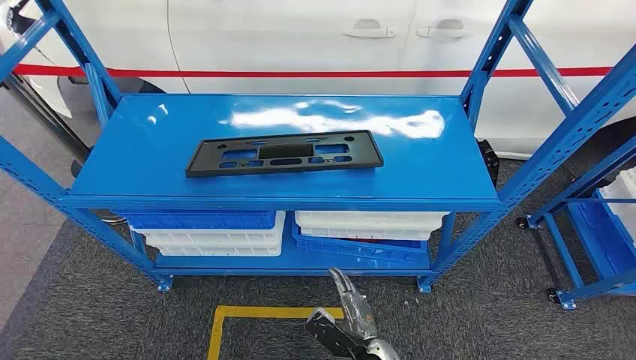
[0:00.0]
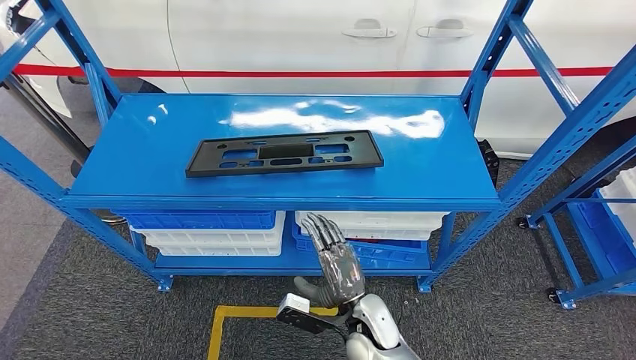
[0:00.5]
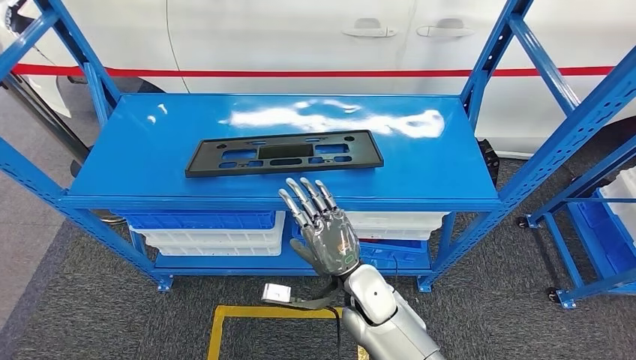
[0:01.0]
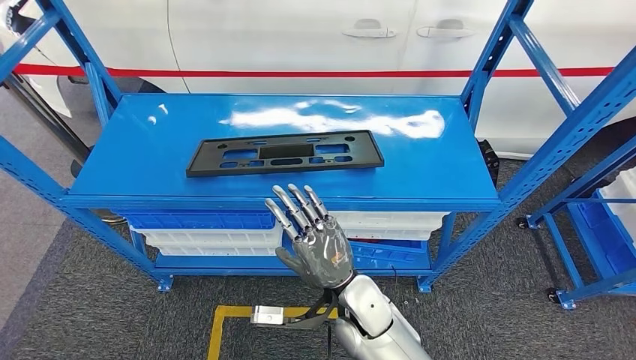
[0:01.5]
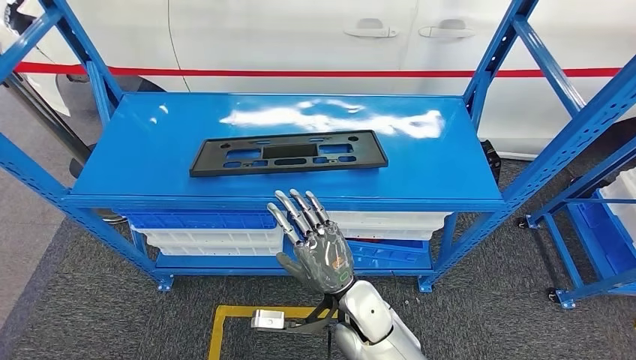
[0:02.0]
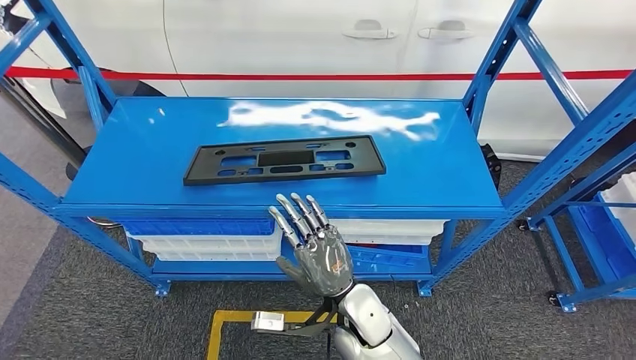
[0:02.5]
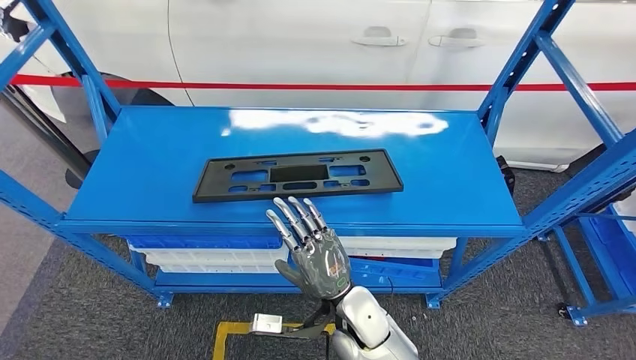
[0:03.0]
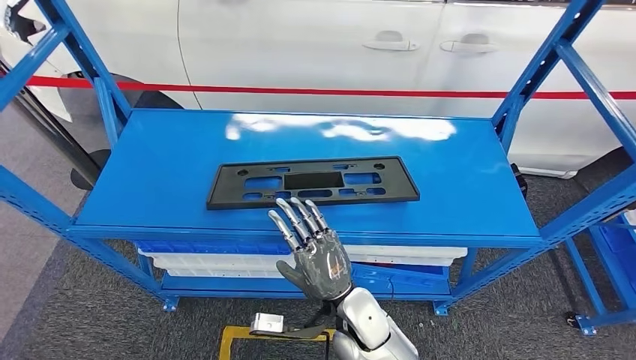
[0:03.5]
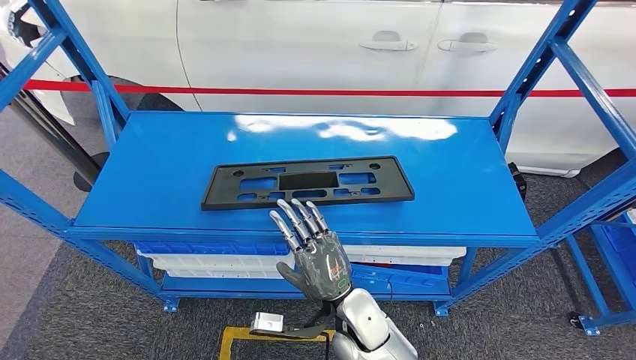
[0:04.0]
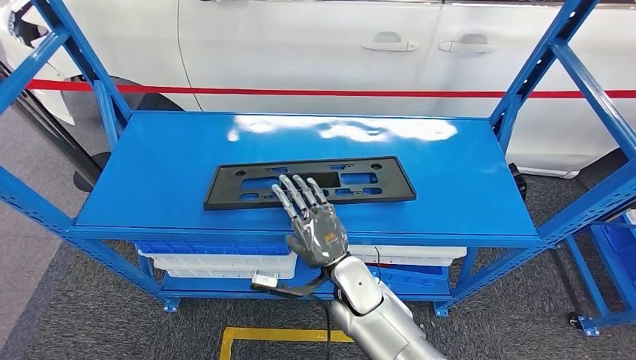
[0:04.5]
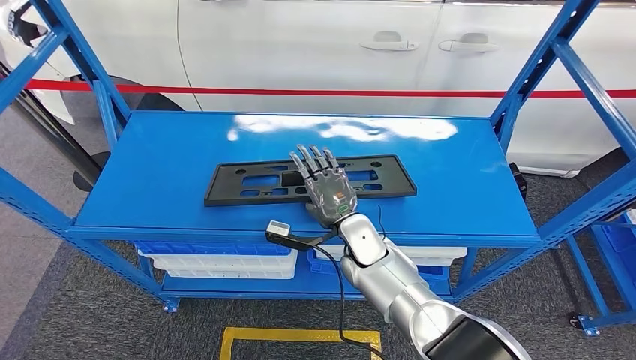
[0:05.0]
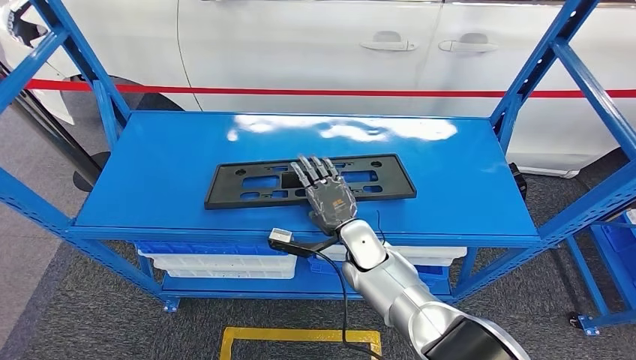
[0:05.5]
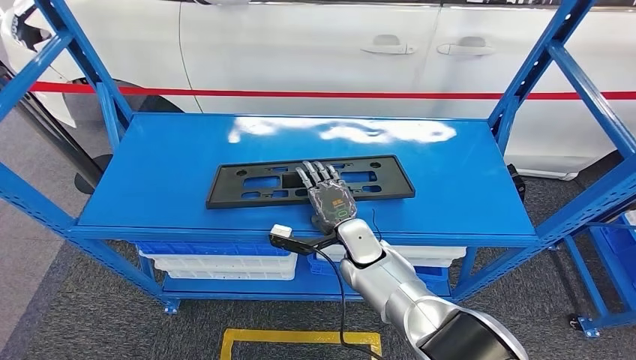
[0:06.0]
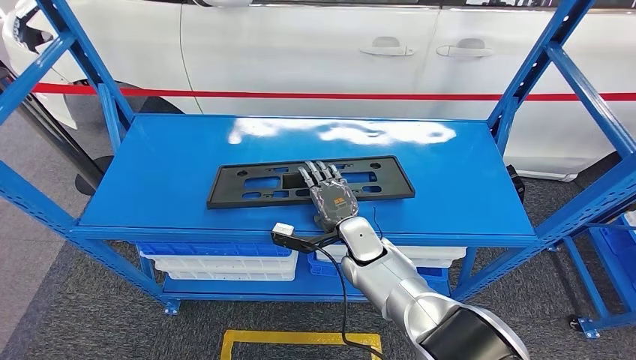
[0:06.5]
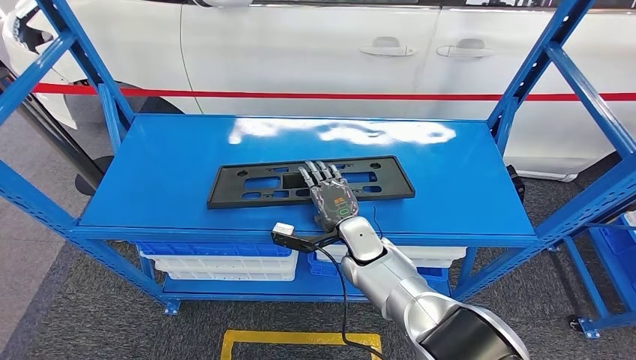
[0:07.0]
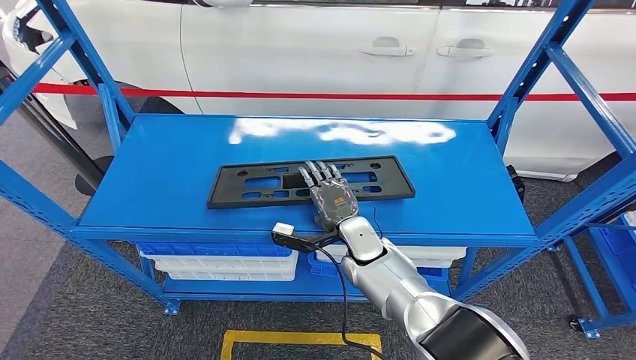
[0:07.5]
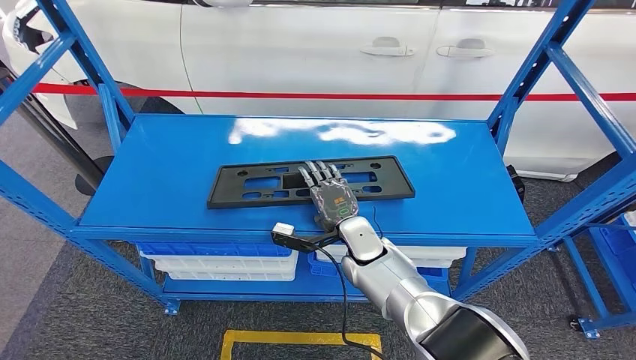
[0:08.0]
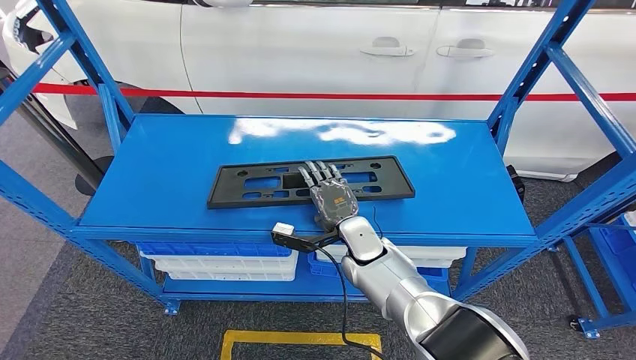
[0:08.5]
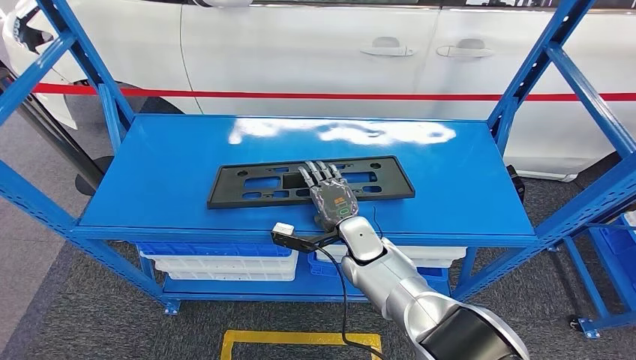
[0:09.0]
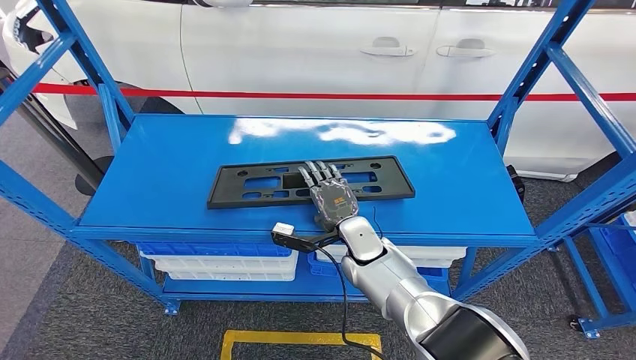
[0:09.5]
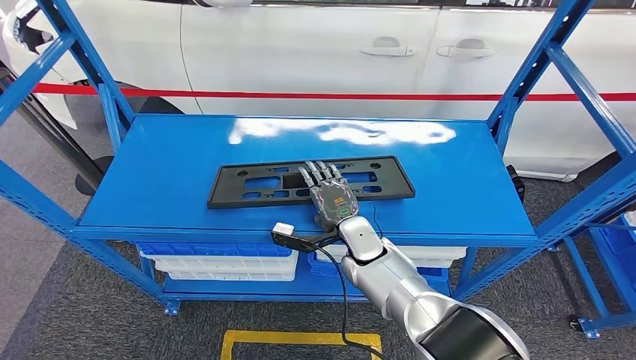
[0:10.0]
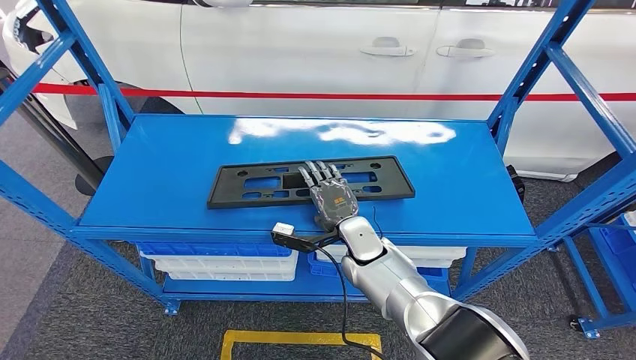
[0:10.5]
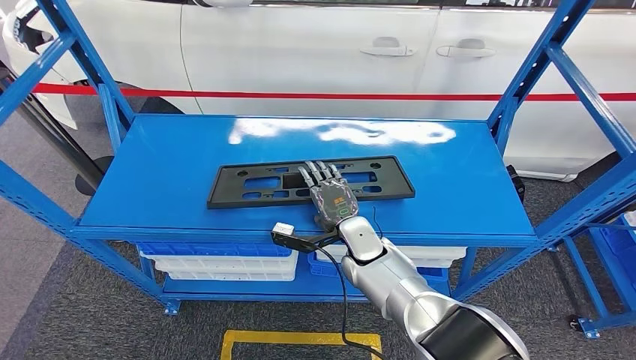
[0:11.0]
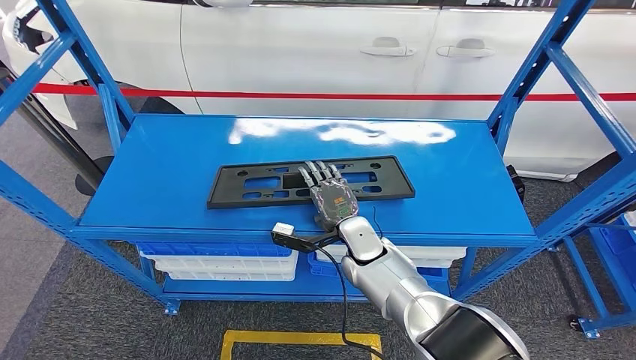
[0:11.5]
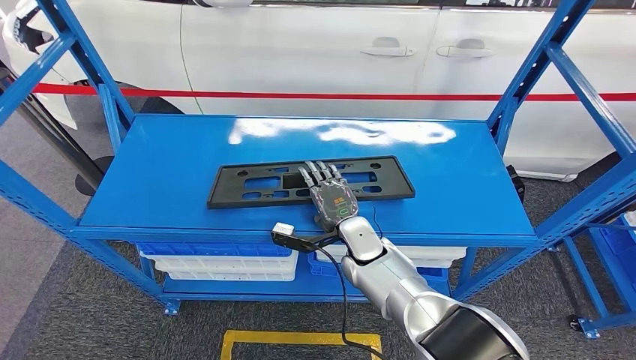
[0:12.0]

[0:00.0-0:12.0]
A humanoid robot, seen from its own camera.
0:04.0 to 0:06.0: The right hand shifts about 15 cm forward.
0:06.0 to 0:12.0: Both hands stay about where they are.

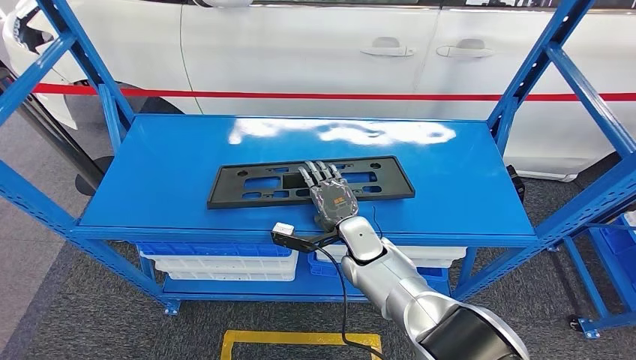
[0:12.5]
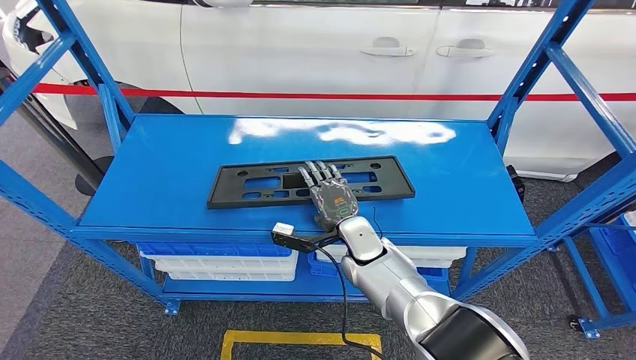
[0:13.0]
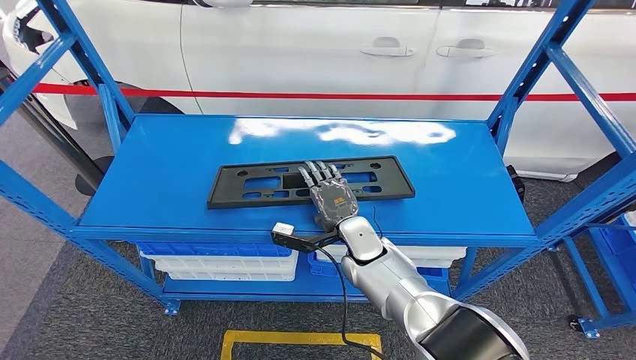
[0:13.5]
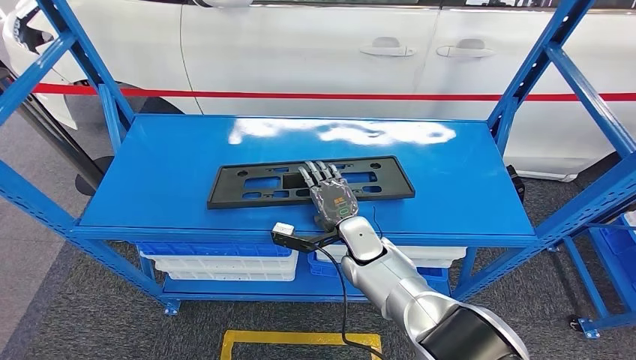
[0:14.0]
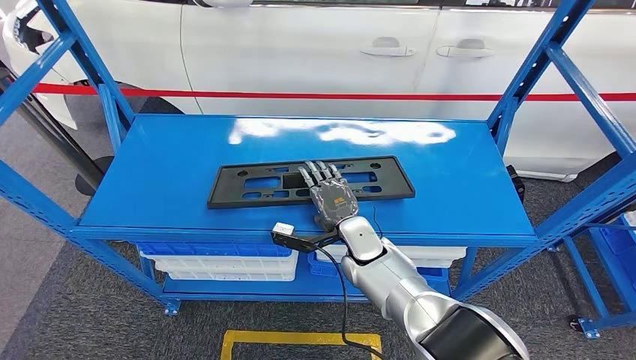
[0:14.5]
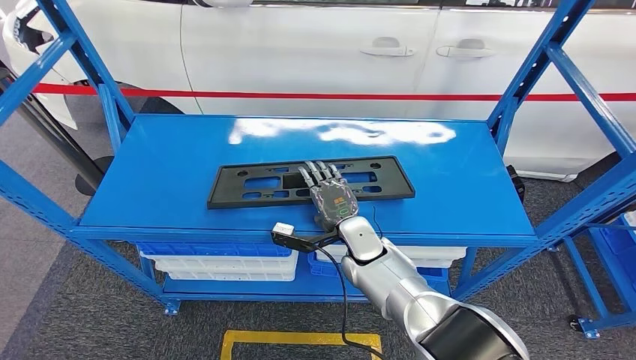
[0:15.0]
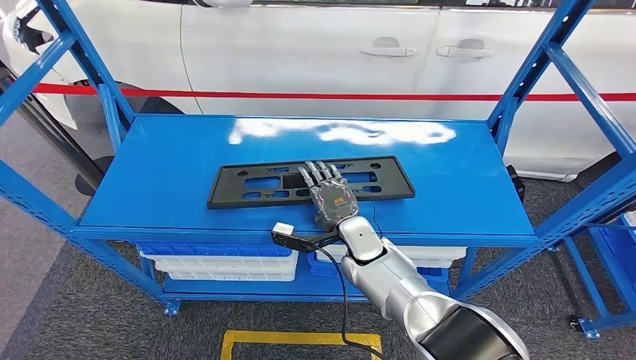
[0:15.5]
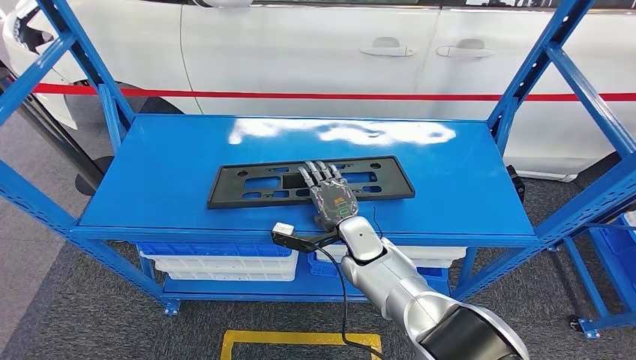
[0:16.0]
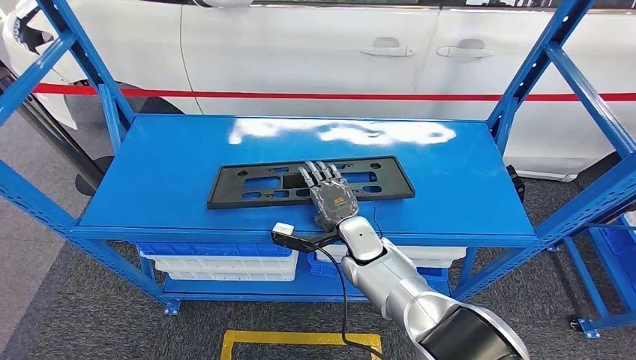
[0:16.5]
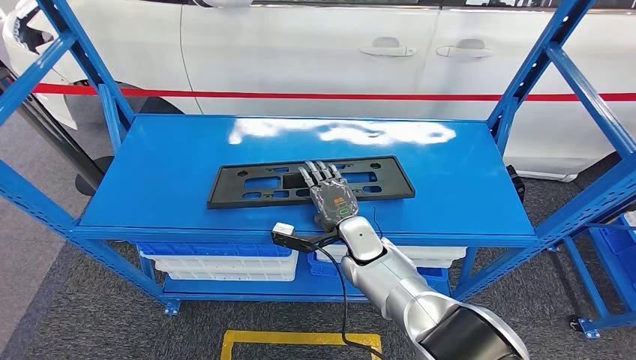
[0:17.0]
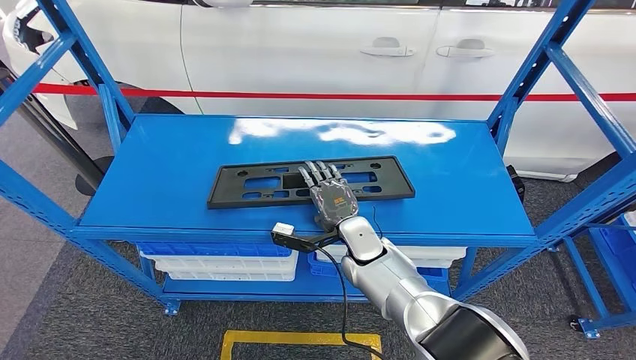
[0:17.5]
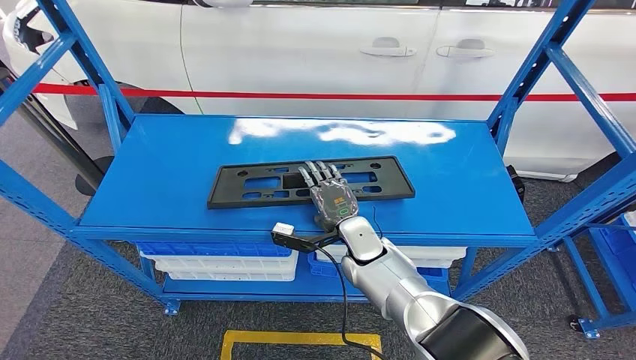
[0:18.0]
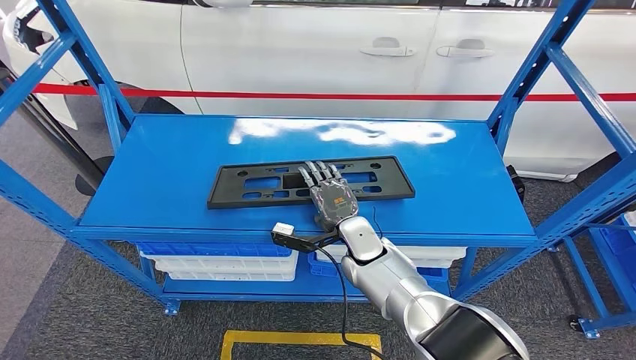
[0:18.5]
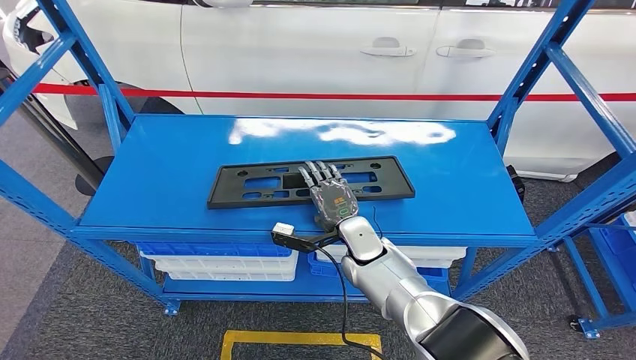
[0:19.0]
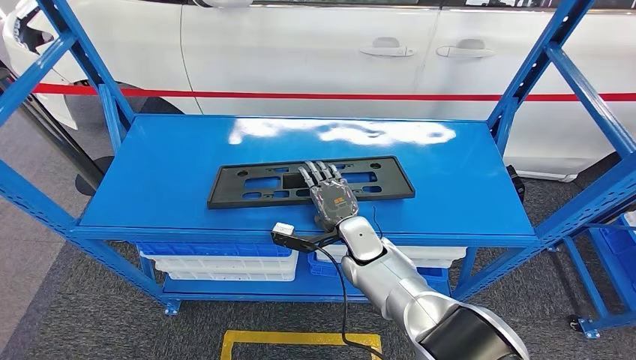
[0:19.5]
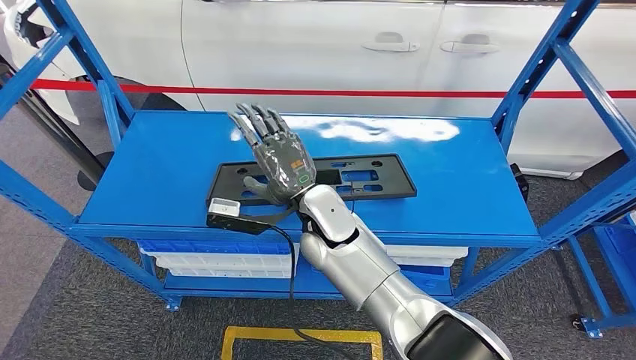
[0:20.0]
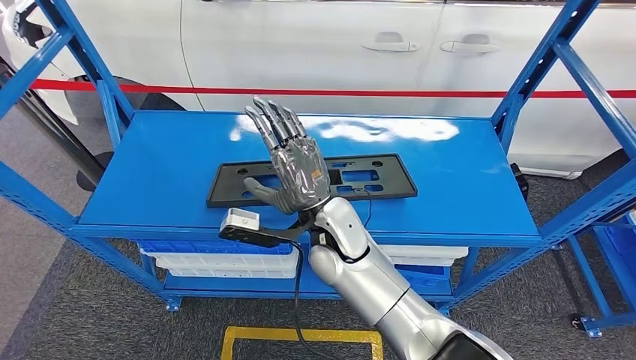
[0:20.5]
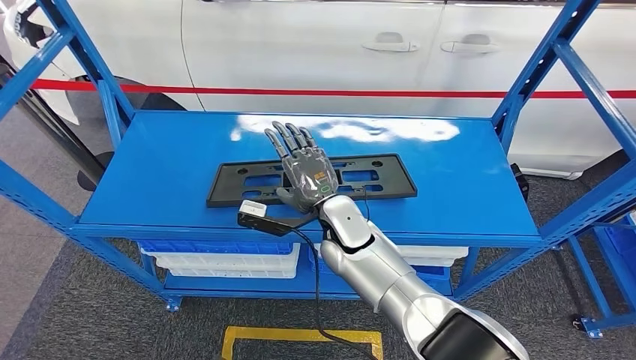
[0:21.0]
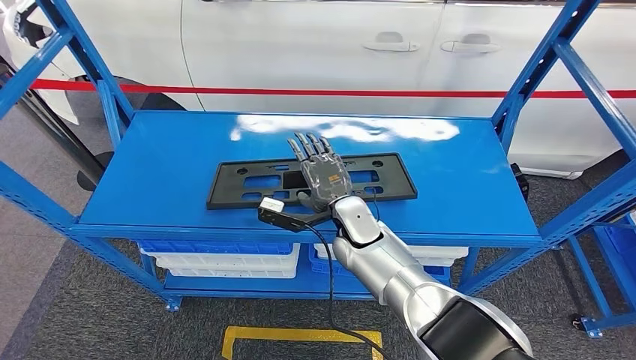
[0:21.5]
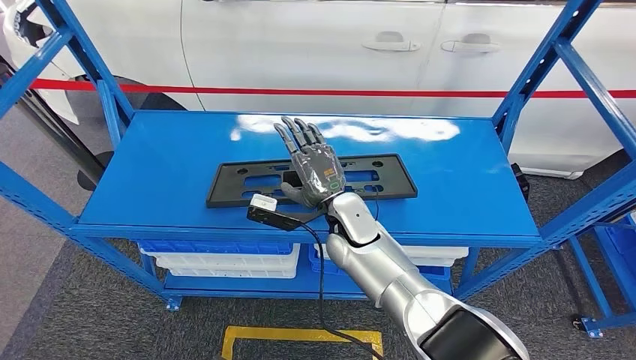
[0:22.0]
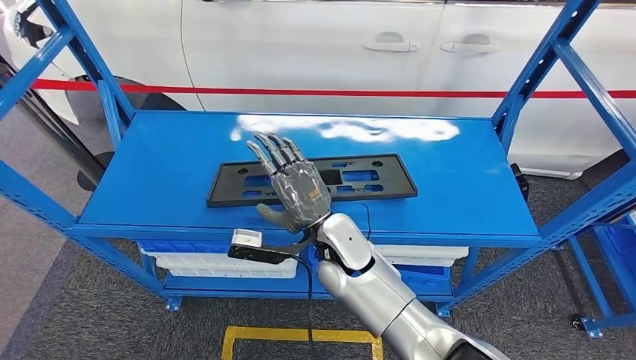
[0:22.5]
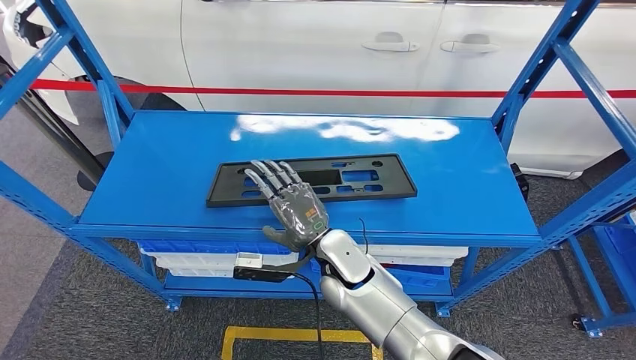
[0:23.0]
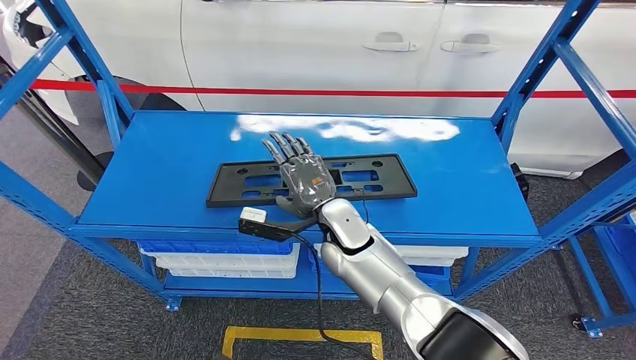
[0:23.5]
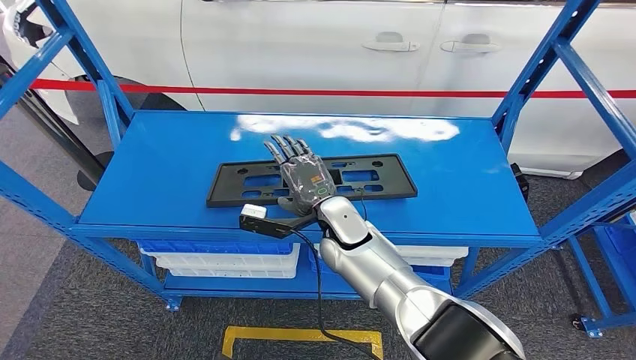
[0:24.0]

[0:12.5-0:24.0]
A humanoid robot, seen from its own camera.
0:12.5 to 0:18.5: Both hands stay about where they are.
